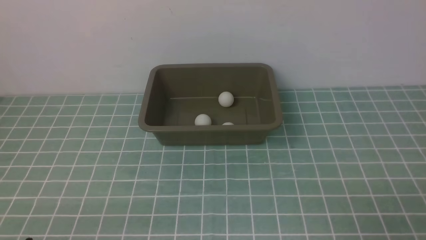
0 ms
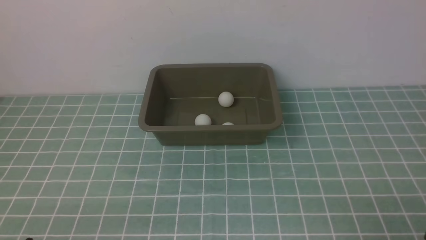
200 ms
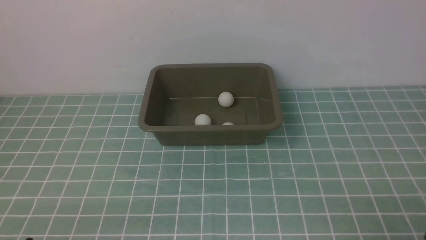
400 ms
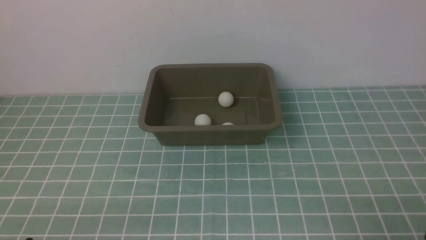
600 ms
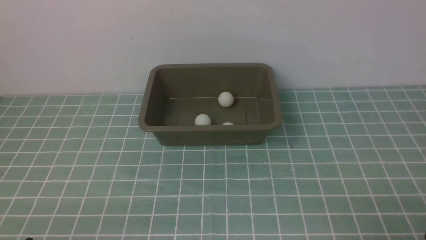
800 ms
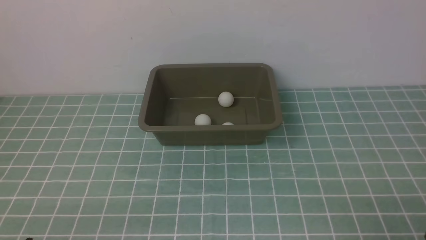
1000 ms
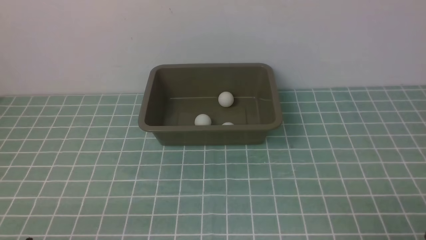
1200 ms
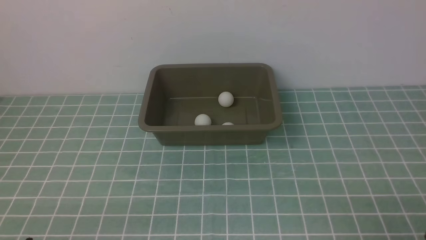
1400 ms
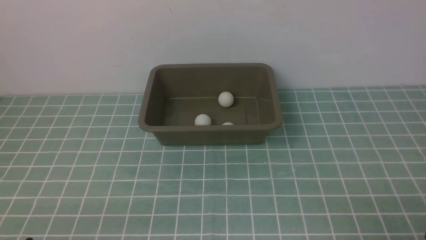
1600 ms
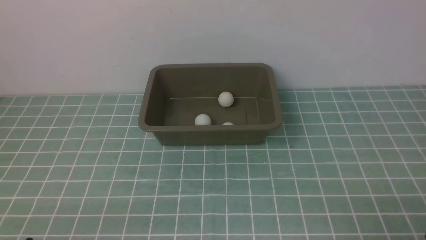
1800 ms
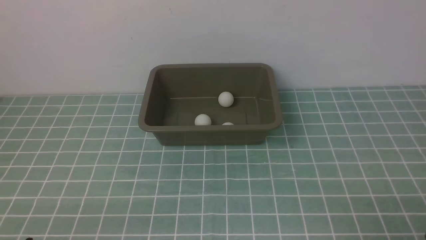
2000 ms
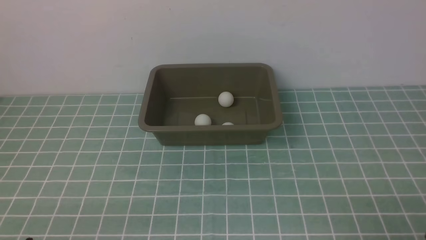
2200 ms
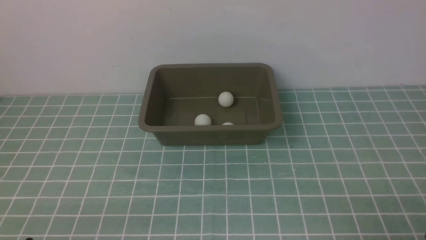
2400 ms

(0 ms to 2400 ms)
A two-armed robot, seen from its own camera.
1200 ms - 2400 ms: Both grippers stay put.

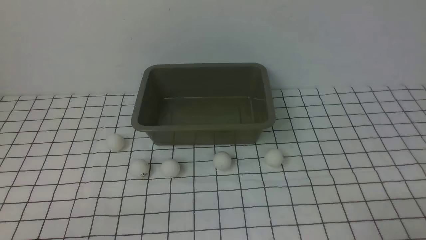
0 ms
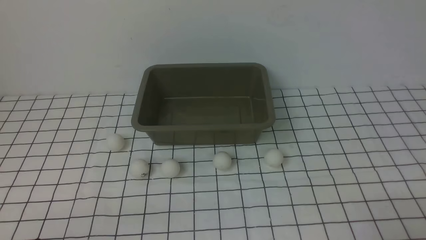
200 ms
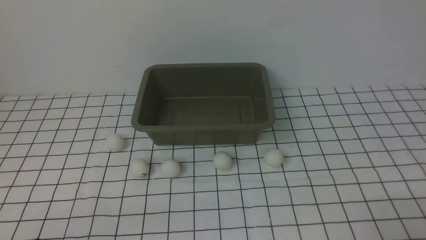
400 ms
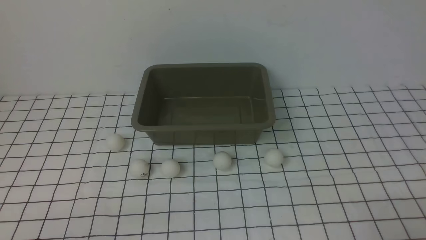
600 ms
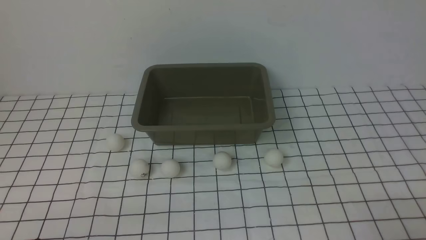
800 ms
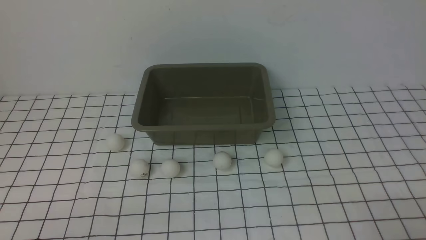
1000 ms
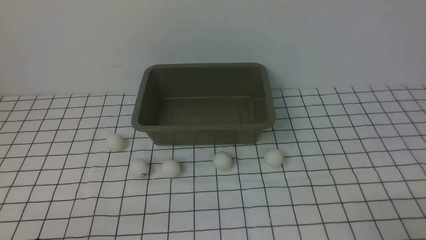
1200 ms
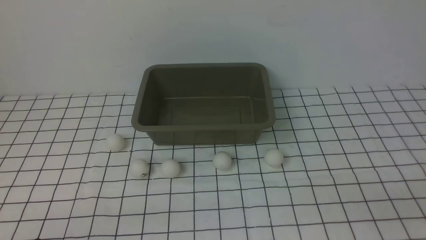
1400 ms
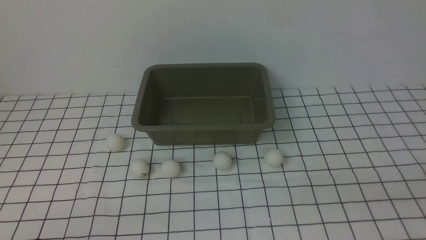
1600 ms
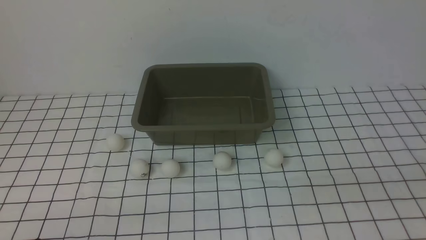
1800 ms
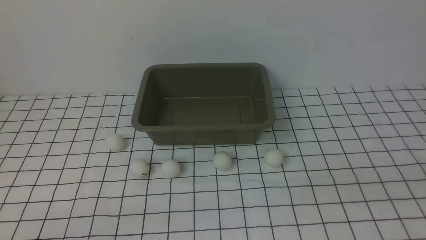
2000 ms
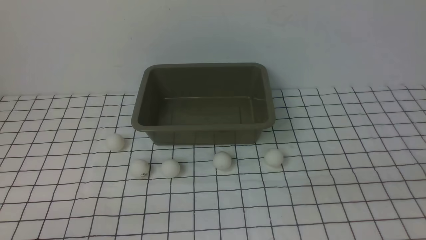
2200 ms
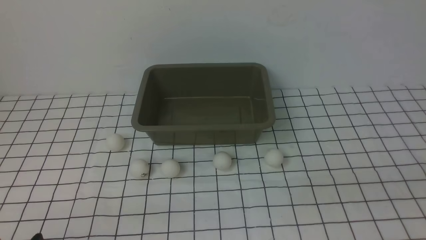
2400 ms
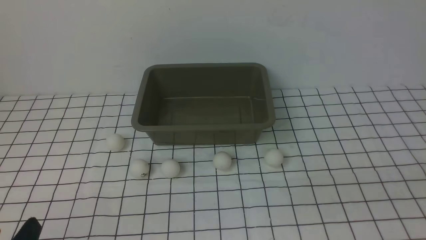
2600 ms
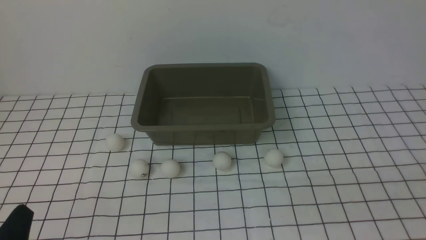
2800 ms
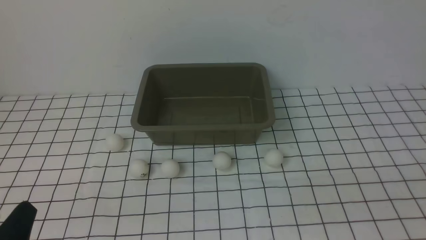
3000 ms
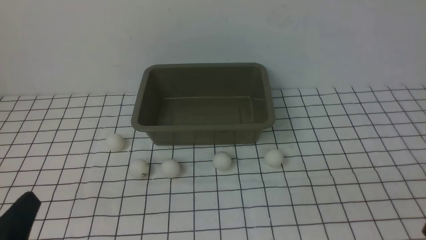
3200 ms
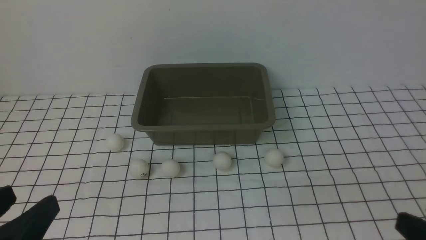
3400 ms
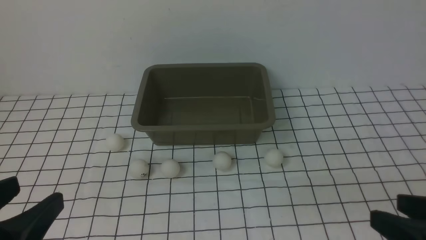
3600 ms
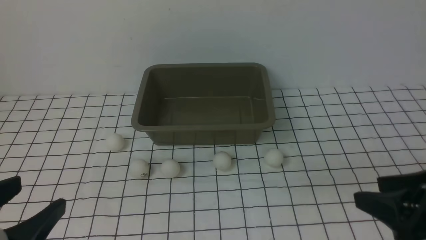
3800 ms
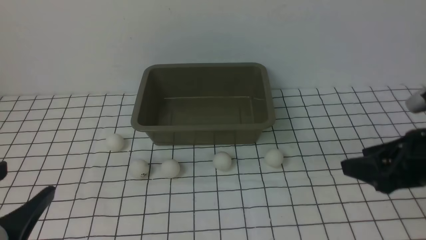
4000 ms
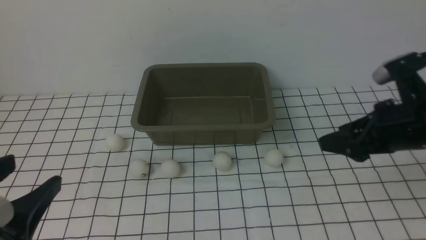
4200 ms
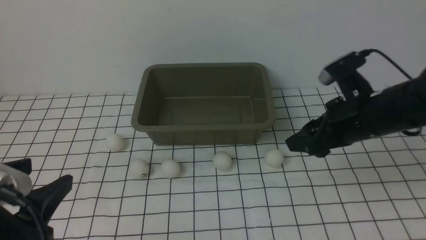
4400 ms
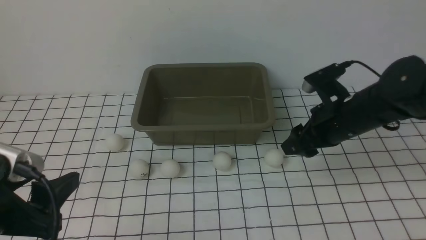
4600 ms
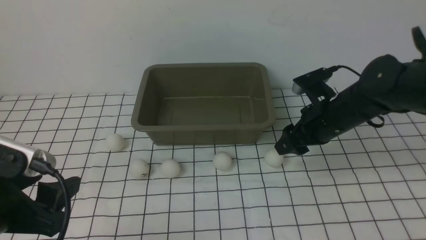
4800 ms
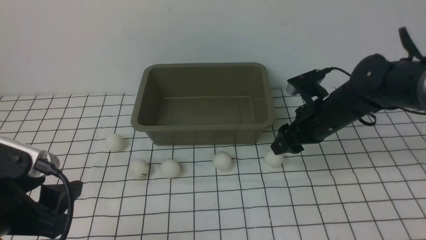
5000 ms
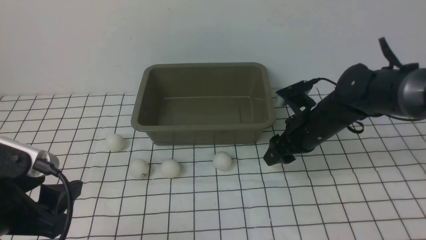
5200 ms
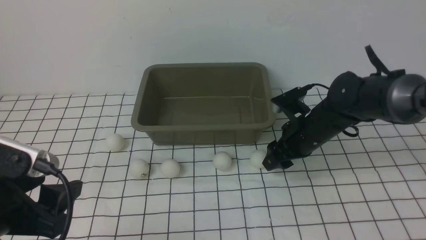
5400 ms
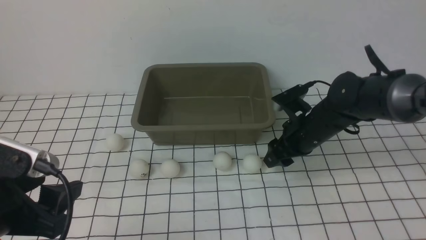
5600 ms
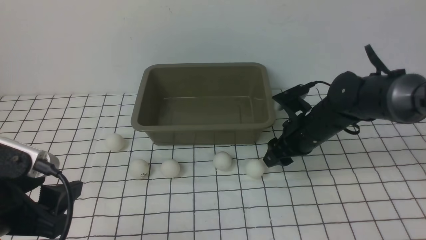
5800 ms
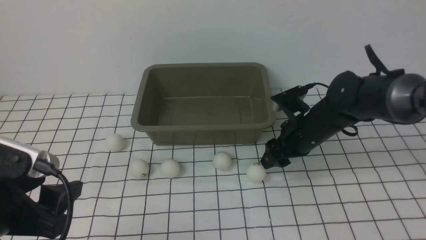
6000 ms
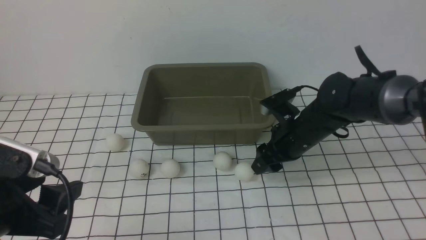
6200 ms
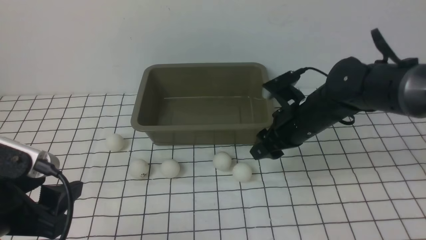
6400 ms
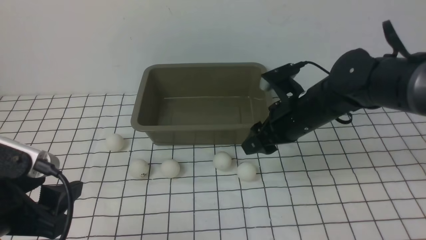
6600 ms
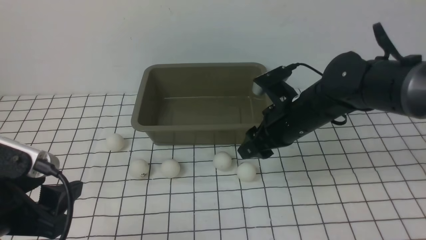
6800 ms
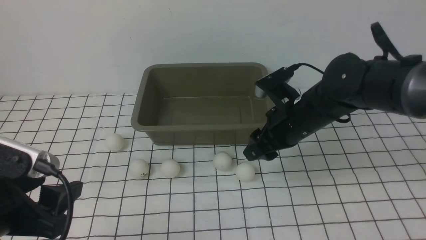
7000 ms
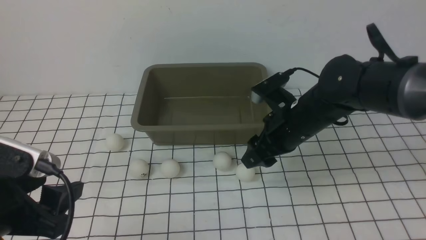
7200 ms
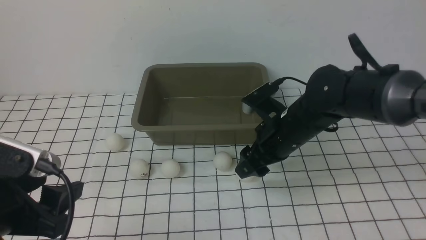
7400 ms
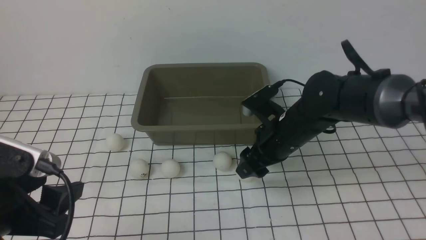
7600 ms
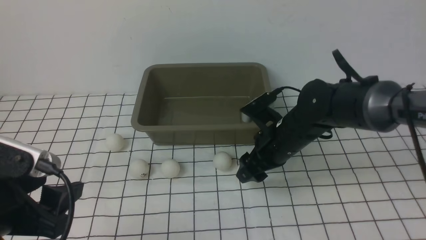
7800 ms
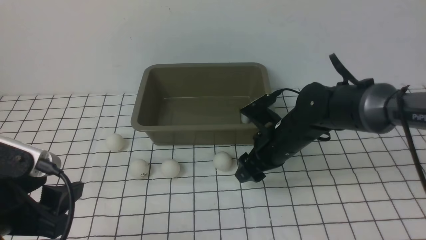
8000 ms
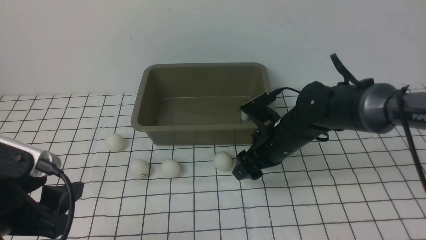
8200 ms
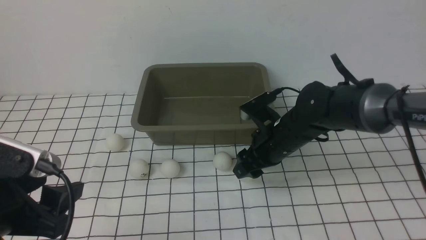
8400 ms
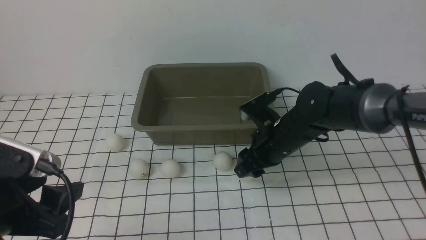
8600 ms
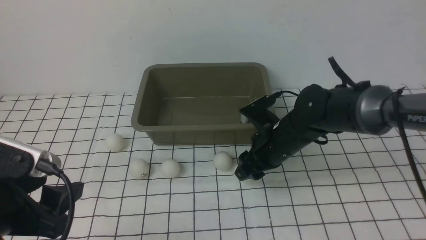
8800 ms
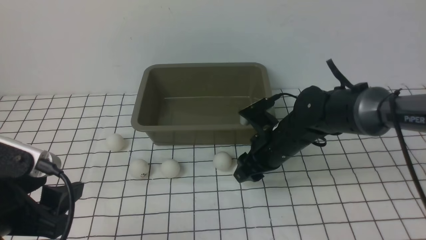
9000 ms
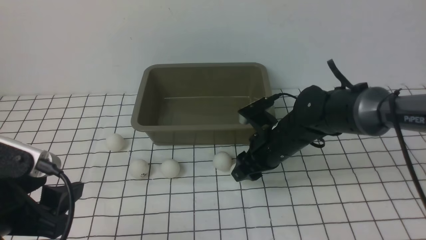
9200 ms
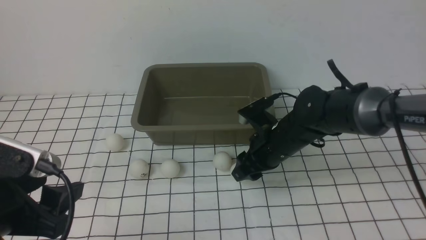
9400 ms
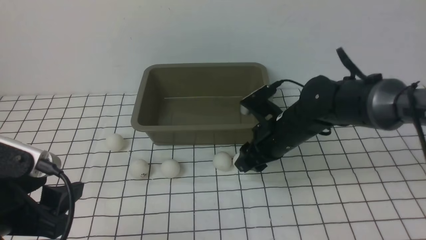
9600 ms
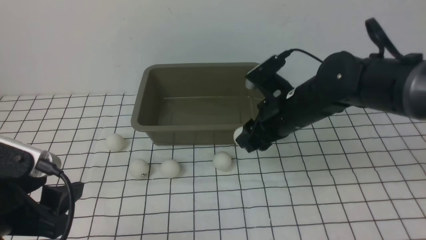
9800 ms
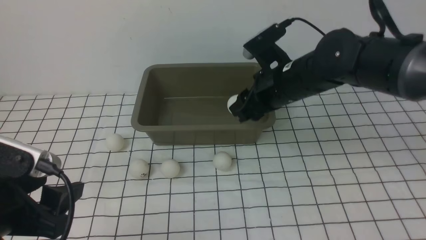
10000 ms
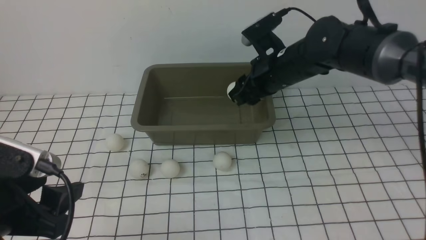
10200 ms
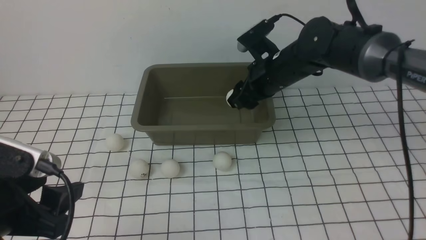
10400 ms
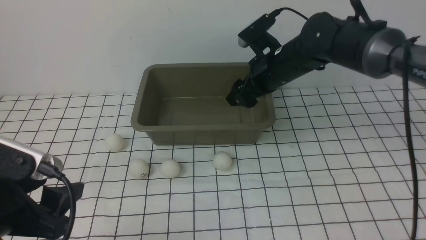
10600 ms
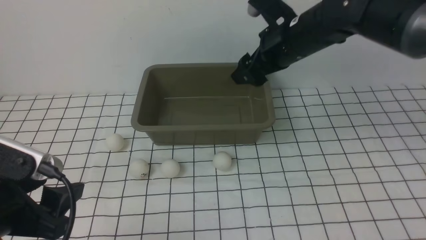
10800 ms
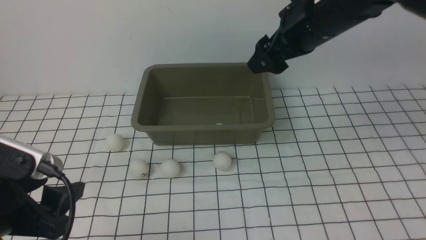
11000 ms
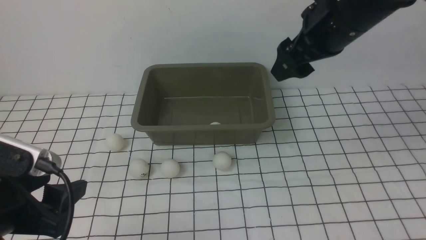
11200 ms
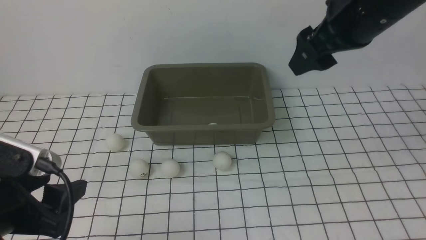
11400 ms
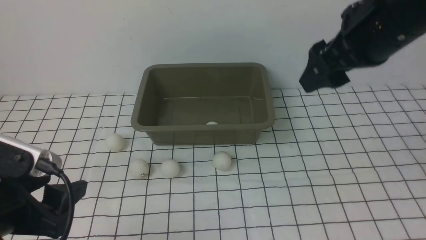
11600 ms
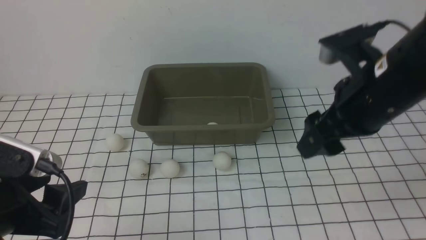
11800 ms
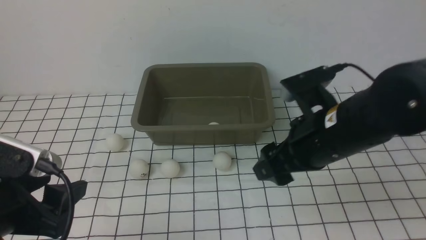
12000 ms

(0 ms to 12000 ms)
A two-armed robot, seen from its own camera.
Step, 0 ms - 9600 ms: use the right arm to clamp the table tennis ball closest to it.
Step, 10000 ms - 10600 ms: use the right arm to put the table tennis ball into the box.
1600 ms - 3000 ms: The left gripper ends up roughly 5 cm from where it was.
3000 ms - 4400 ms: The left gripper travels upward by approximately 5 cm. Meanwhile the right gripper is displaced forward by roughly 25 cm.
4400 ms - 6000 ms: The right gripper is displaced downward, forward and to the left by some 15 cm.
6000 ms - 7600 ms: The right gripper changes place by some 5 cm.
7600 ms - 9000 ms: The right gripper closes up.
9000 ms - 10400 ms: The right gripper shifts about 10 cm upward and forward.
10400 ms - 12000 ms: The right gripper heads backward, covering approximately 15 cm, and opens up.

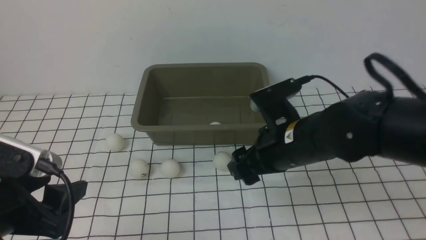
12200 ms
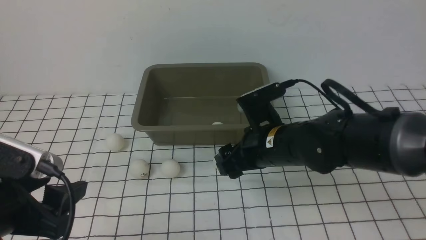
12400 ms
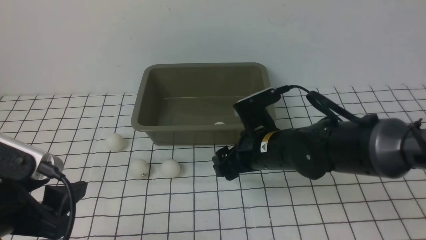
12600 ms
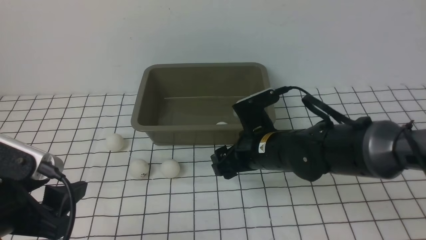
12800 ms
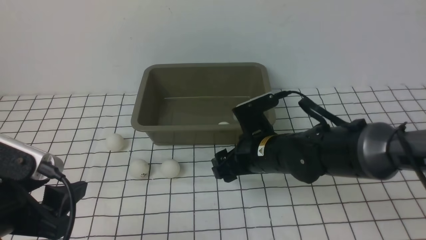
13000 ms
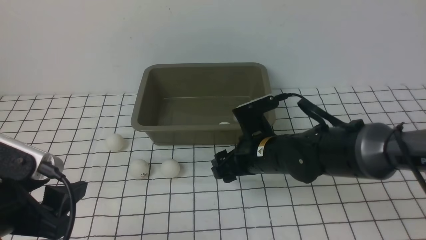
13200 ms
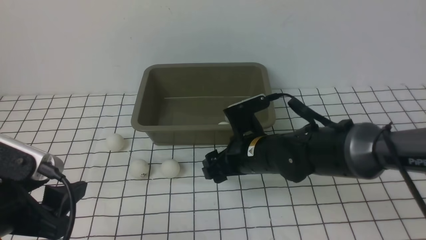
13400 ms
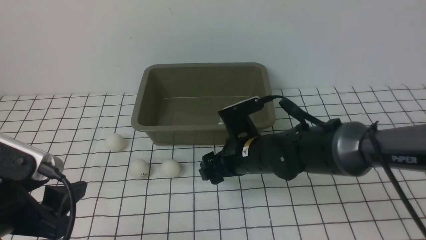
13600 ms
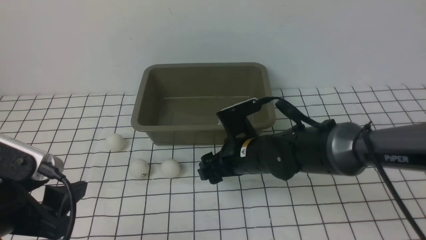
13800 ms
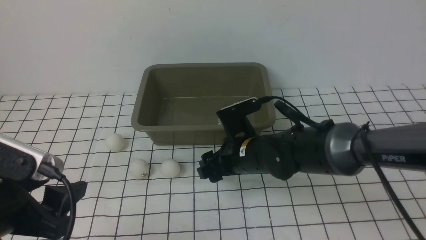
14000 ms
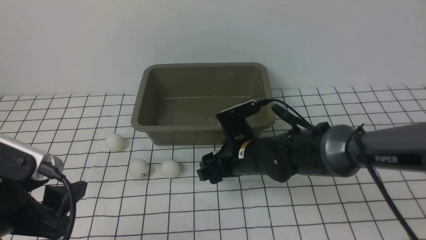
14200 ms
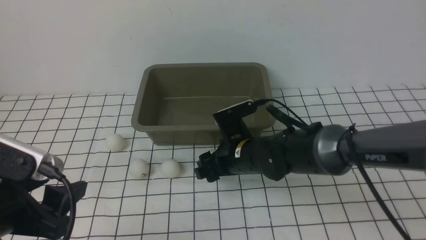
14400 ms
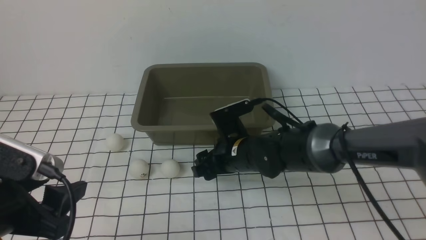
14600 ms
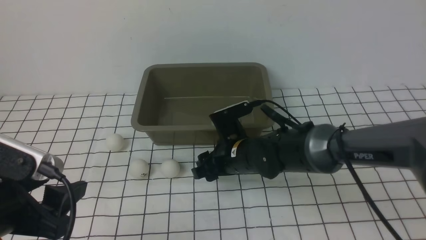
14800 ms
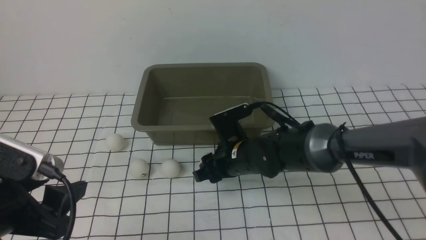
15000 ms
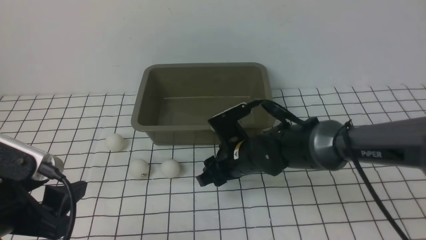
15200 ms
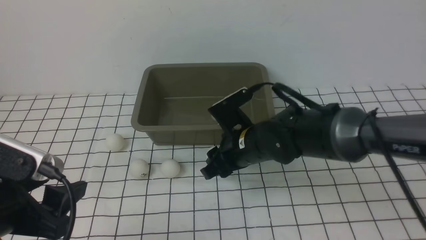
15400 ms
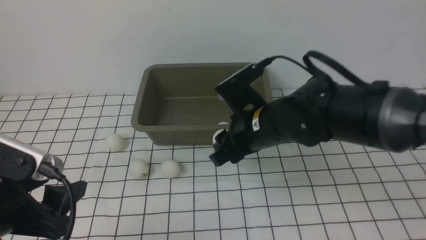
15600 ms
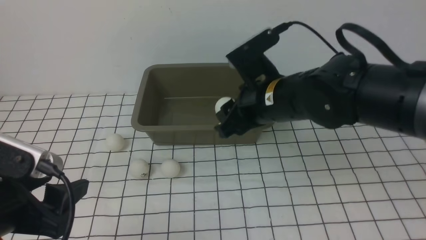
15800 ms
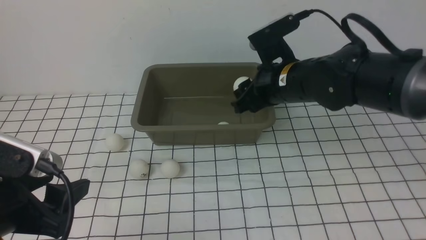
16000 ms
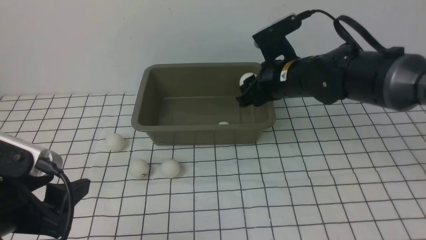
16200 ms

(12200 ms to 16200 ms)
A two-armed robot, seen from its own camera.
Step, 12200 ms - 15400 ms: use the right arm to clamp the table tennis ball closest to it.
12200 ms - 13600 ms: The right gripper shifts about 5 cm downward.
13600 ms - 14800 ms: The right gripper closes its fingers.
14800 ms - 16200 ms: The right gripper goes about 15 cm upward and to the right.
